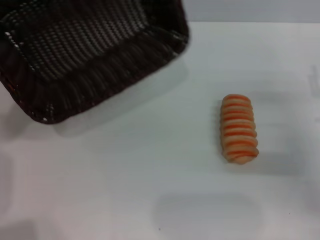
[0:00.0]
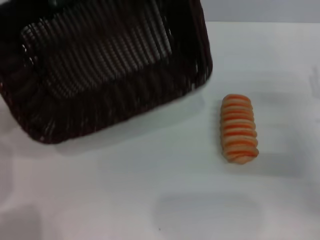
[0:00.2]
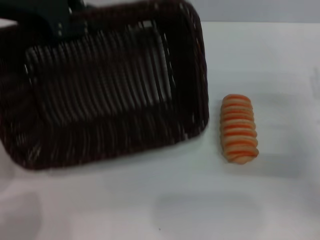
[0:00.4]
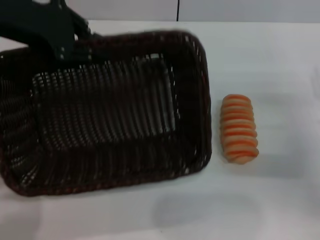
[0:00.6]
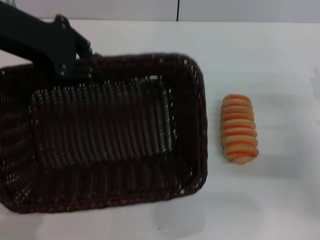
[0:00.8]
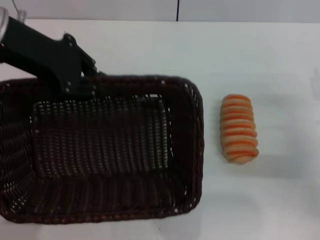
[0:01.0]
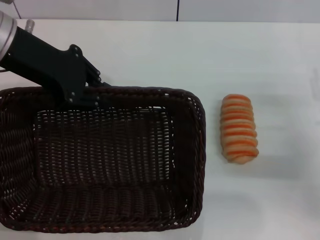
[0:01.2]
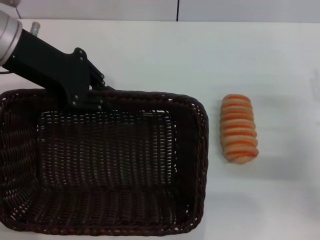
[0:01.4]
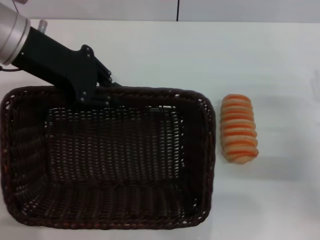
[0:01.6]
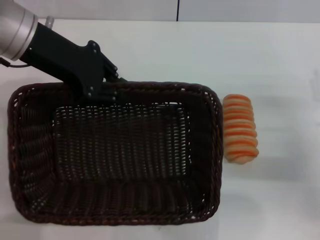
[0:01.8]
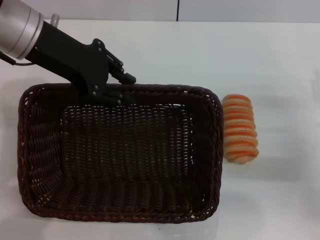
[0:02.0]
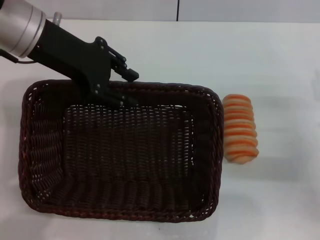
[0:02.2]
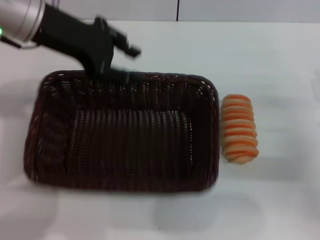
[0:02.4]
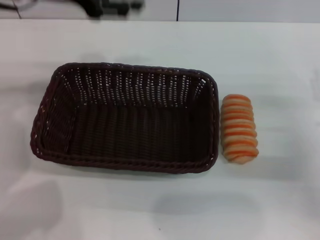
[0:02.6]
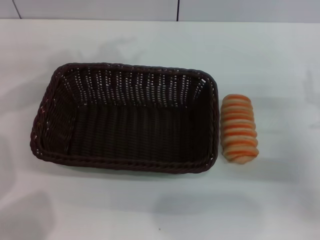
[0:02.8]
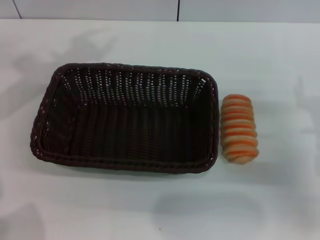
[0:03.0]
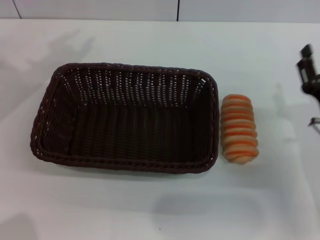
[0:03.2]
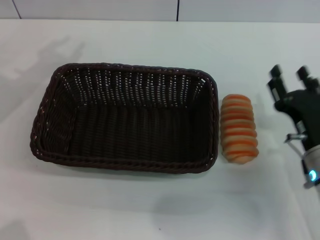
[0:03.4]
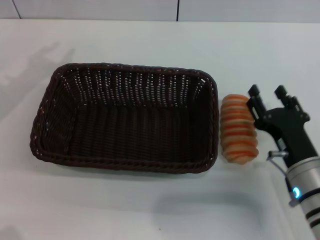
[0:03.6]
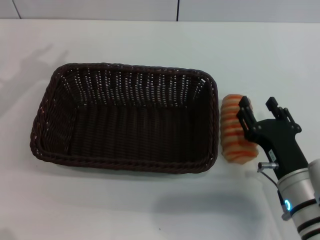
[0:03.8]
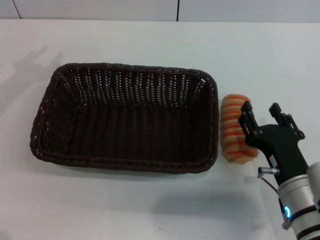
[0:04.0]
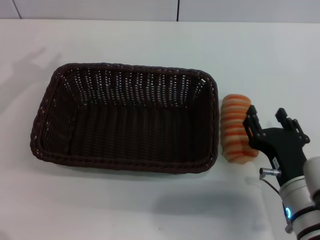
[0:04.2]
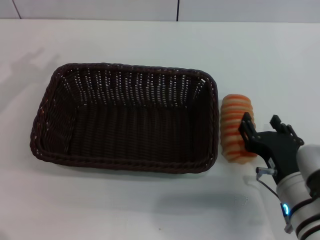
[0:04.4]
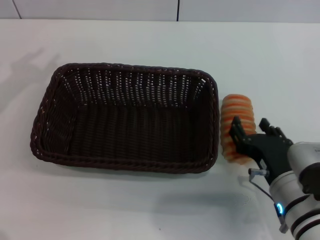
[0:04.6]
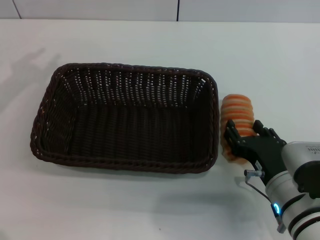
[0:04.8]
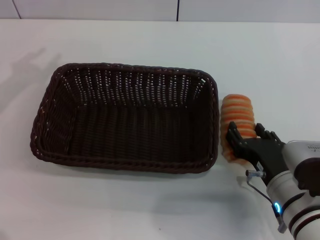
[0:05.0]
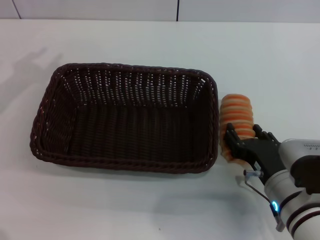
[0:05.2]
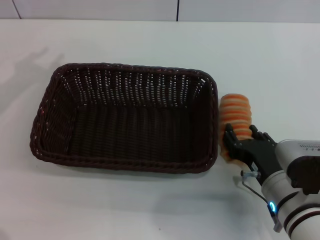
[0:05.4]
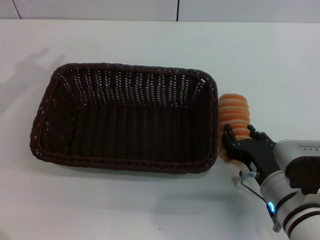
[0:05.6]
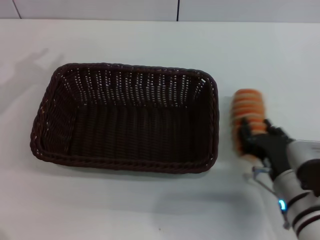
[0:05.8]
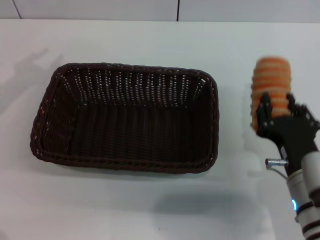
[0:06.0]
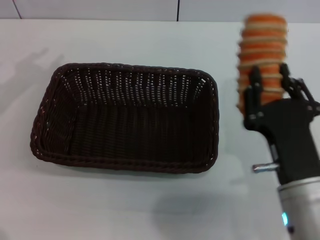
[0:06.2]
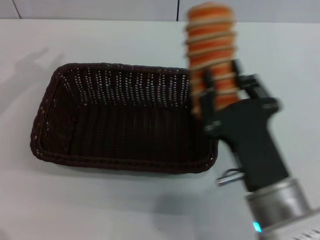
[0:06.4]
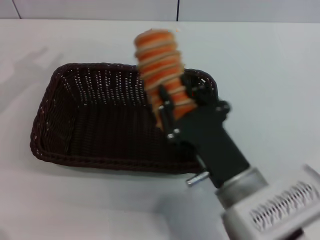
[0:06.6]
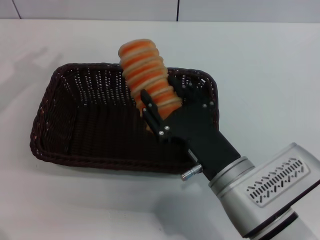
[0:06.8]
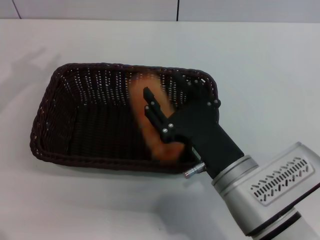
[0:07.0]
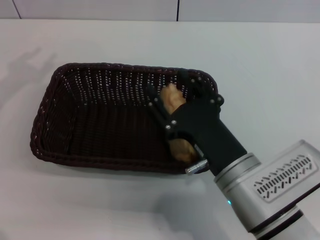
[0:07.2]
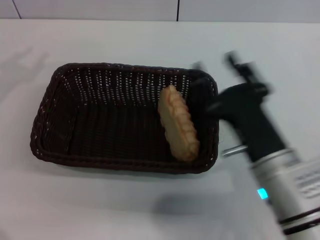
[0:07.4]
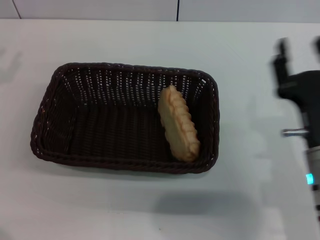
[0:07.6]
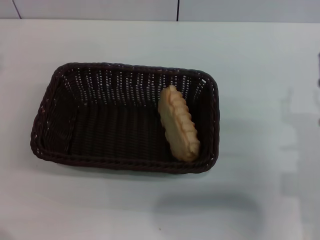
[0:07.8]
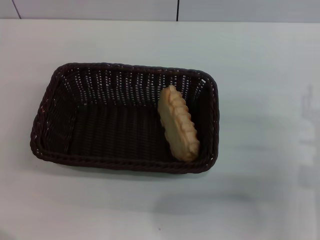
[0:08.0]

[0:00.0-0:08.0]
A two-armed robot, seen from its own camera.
Step, 0:00.0 to 0:02.4: Place the dark basket in the center of view with the left gripper.
Step, 0:02.6 to 0:06.0: Pick up the long bread with the right gripper.
Step, 0:06.4 to 0:07.0: Place the long bread into the dark basket with the right gripper.
0:00.0 to 0:01.6: The left gripper changes place by some 5 cm.
0:01.6 to 0:03.2: The right gripper moves to the left, roughly 5 cm. The left gripper is displaced to the left by approximately 10 cm, and opens.
0:03.2 to 0:04.8: The left gripper is displaced to the left by roughly 5 cm; the right gripper heads to the left and backward, covering some 10 cm.
0:04.8 to 0:06.4: The right gripper moves upward and to the left, approximately 5 cm, and closes.
0:06.4 to 0:08.0: The left gripper moves downward and backward, approximately 10 cm. Meanwhile the right gripper is displaced to the right and forward by approximately 15 cm, and opens.
